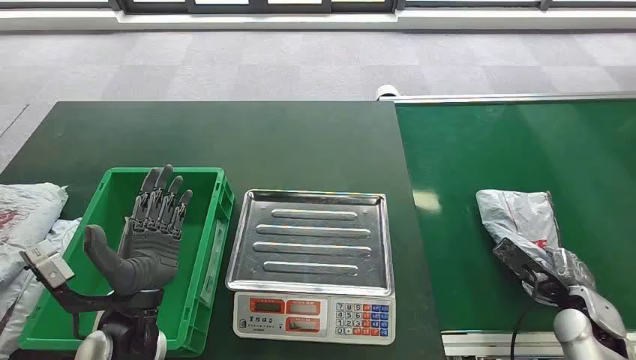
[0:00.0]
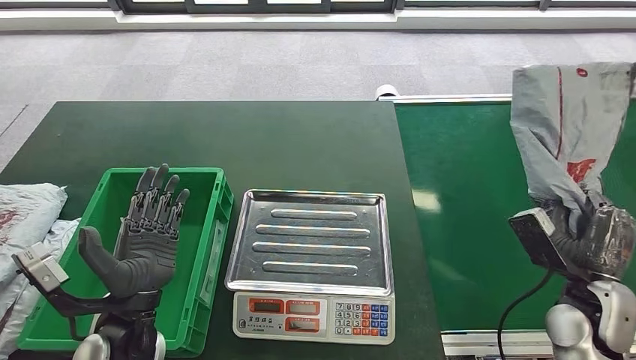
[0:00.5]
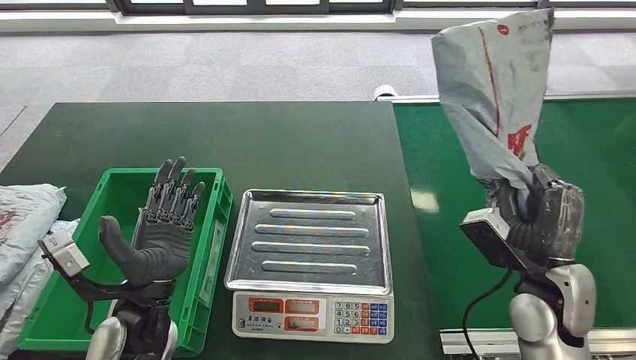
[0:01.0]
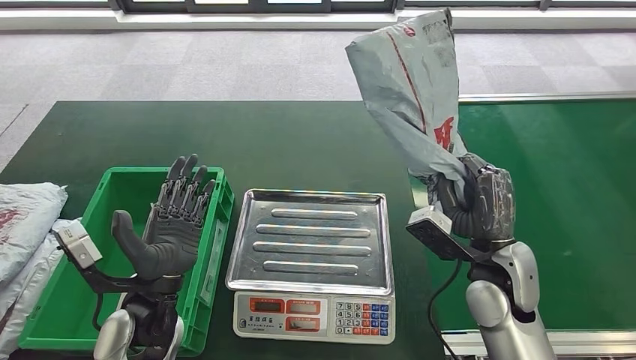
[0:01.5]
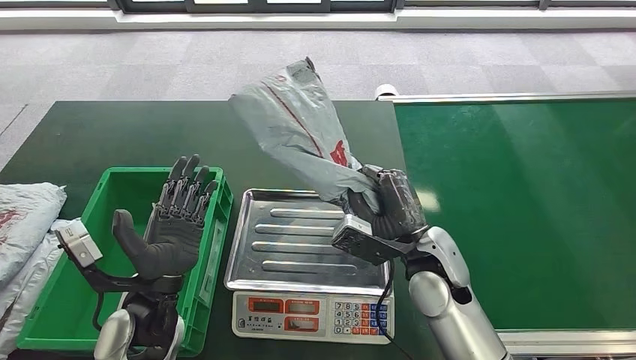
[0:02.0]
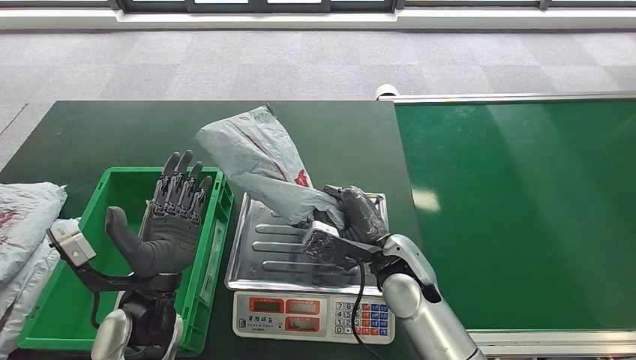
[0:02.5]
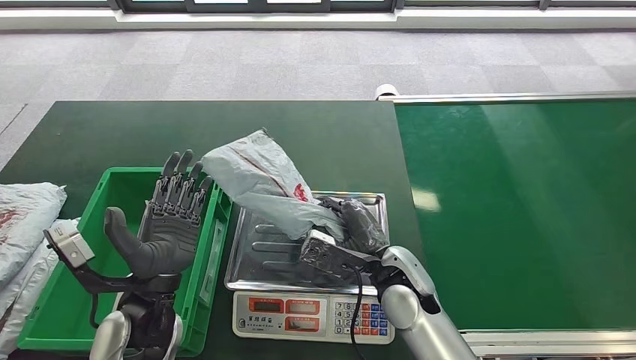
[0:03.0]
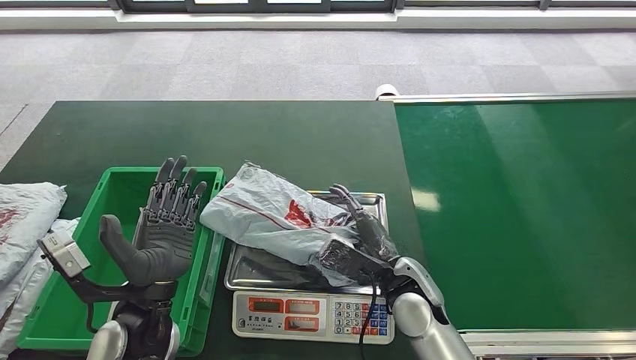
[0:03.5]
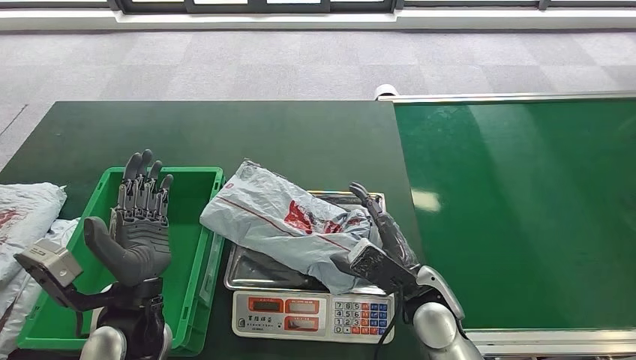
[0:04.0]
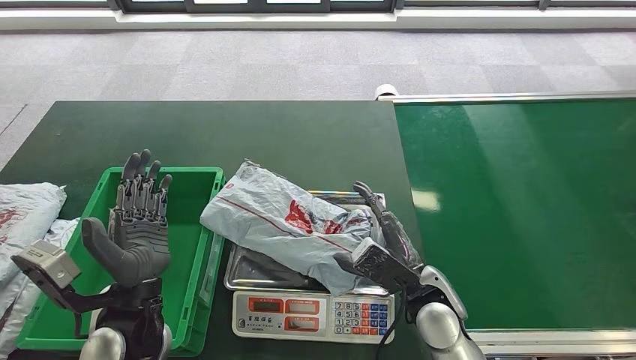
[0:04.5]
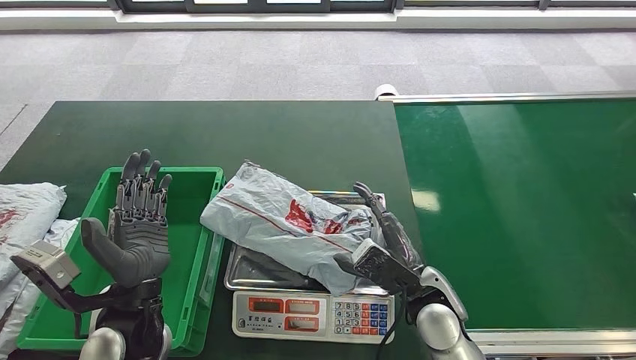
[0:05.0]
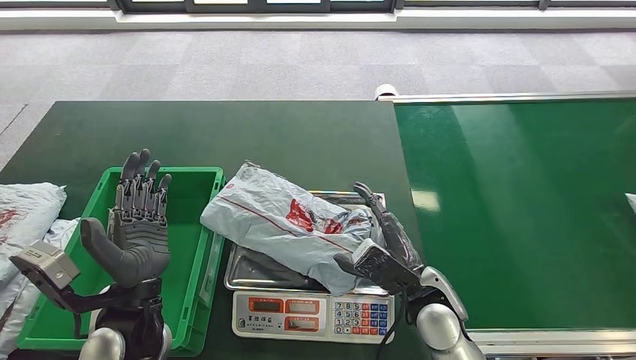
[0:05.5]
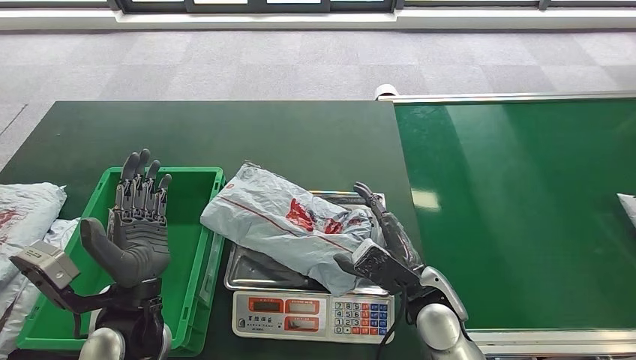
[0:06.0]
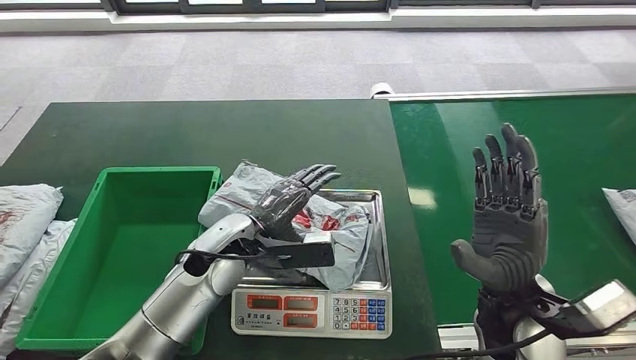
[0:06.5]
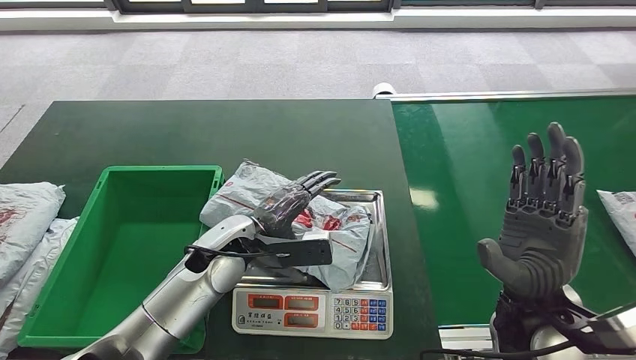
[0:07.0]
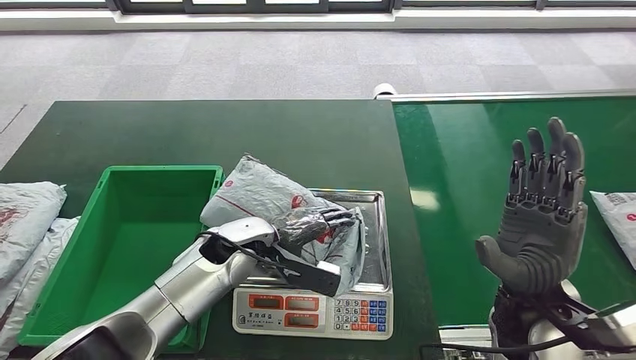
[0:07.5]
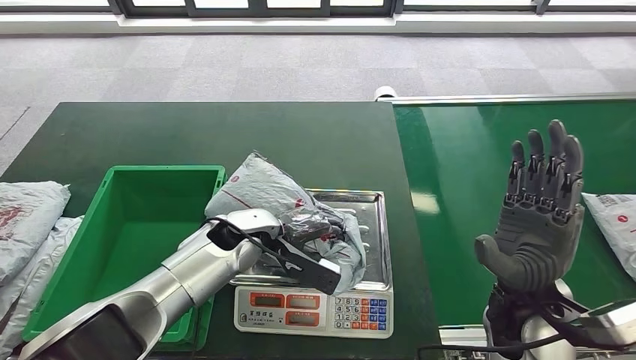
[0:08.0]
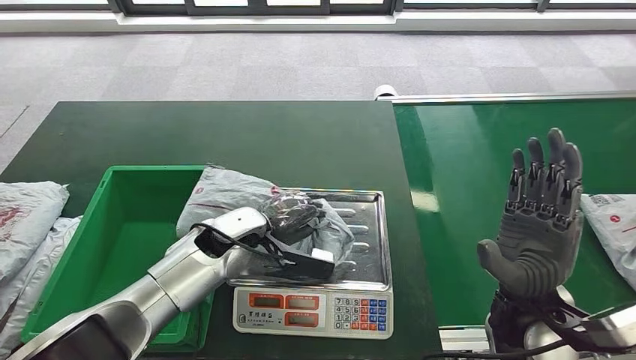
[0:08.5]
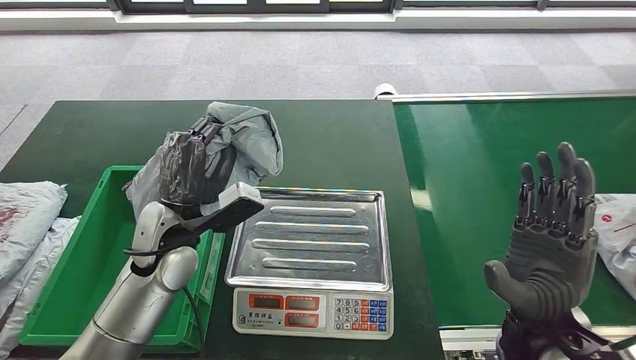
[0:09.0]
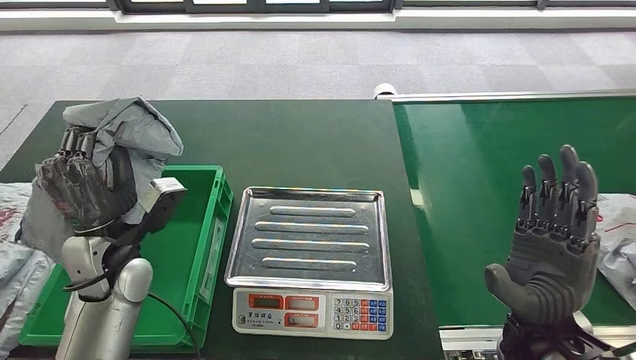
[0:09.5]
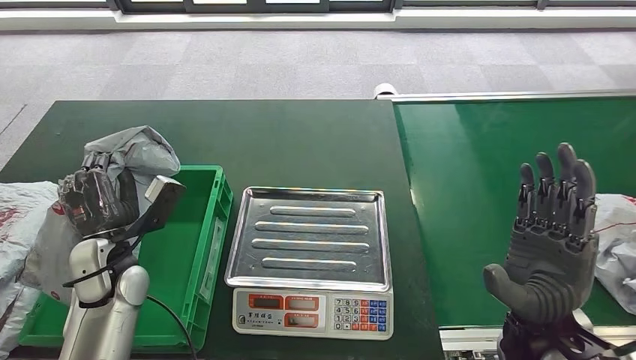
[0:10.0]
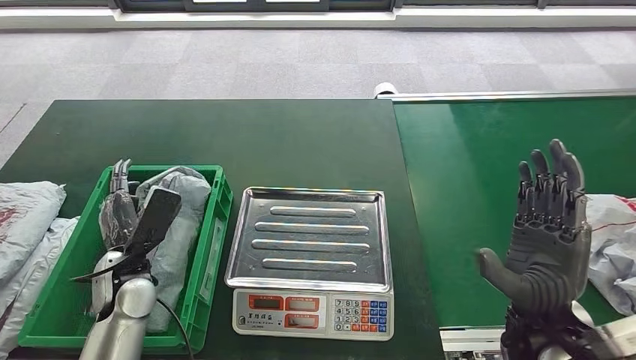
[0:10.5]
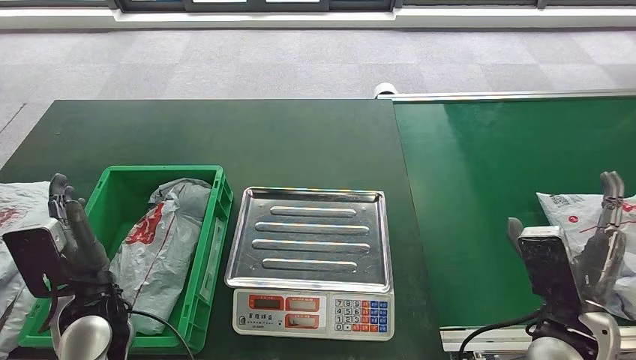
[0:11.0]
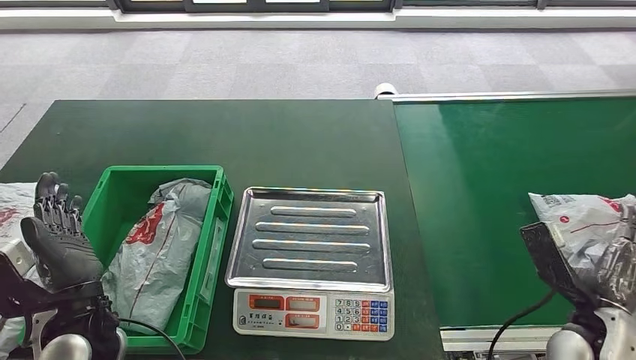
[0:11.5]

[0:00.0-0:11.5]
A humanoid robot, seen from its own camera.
Step, 0:00.0 to 0:01.0: Take the parcel off the conveyor belt.
Step, 0:01.5 to 0:04.5: Place the parcel onto the inbound machine.
Step, 0:05.0 to 0:08.5: Pick up the parcel from the inbound machine.
Step, 0:09.5 to 0:11.0: Put the parcel inside the courier box.
0:04.0 to 0:06.0: The two hands keep their place.

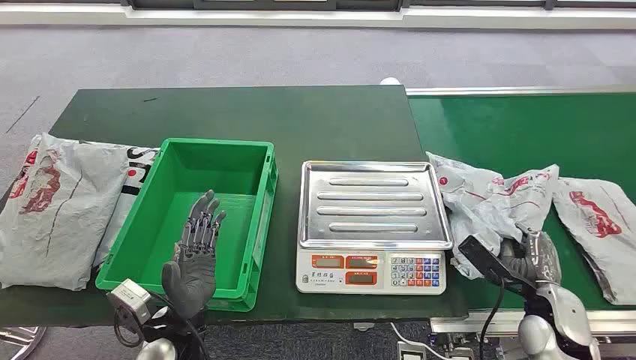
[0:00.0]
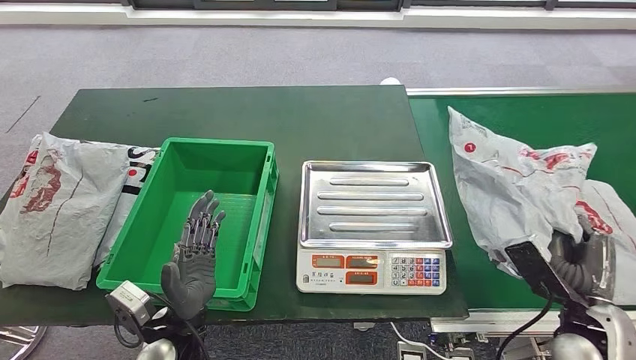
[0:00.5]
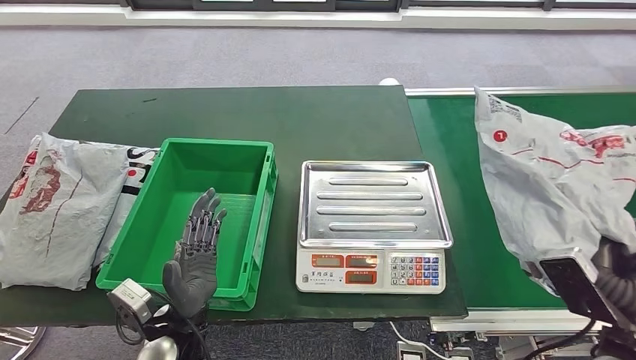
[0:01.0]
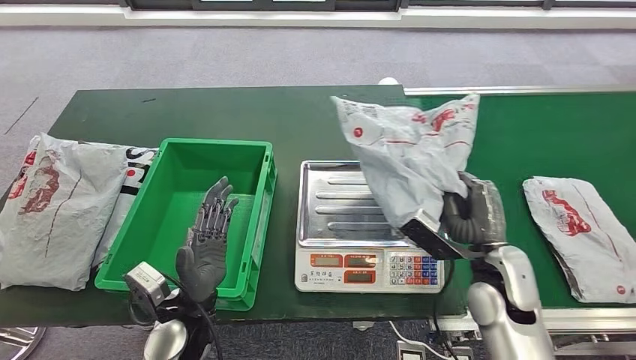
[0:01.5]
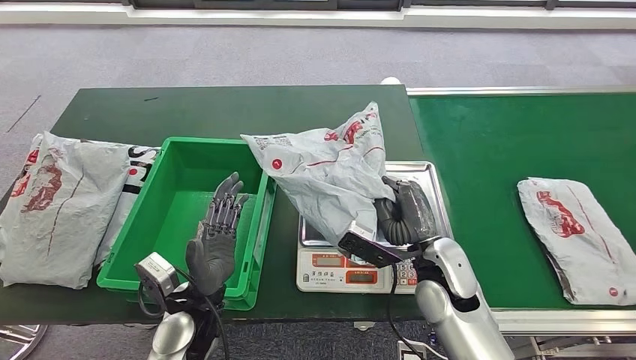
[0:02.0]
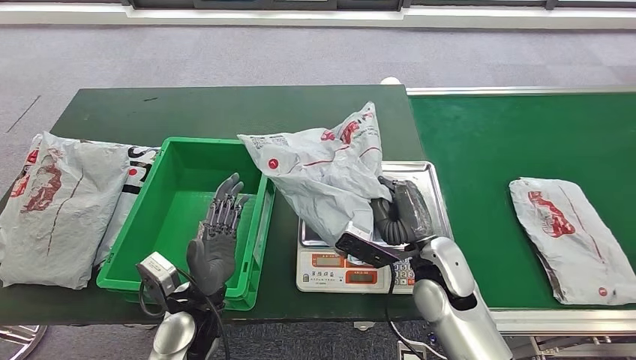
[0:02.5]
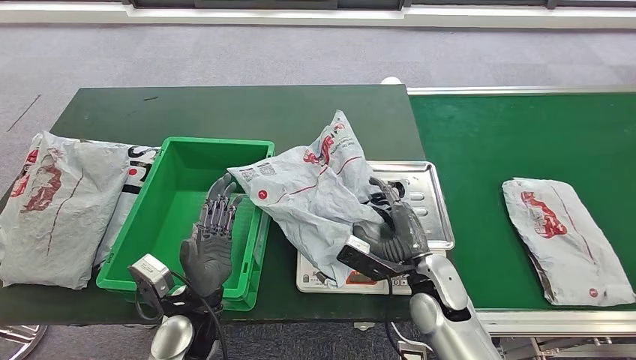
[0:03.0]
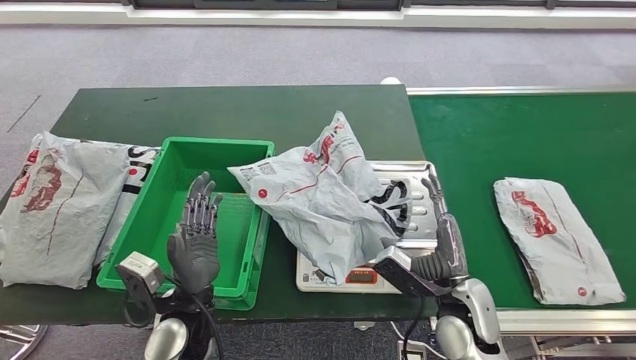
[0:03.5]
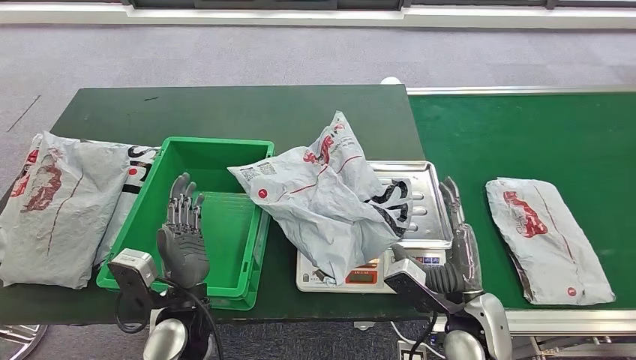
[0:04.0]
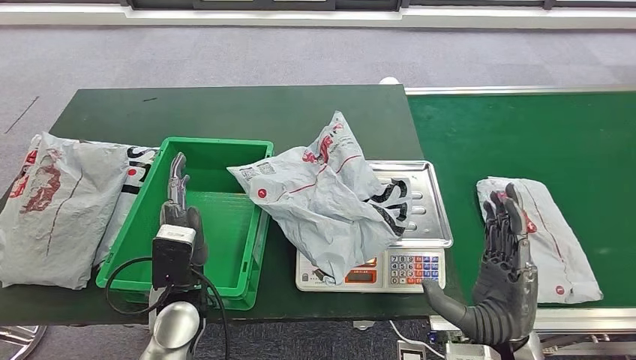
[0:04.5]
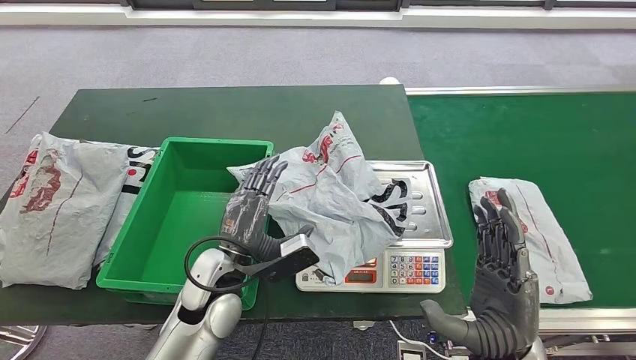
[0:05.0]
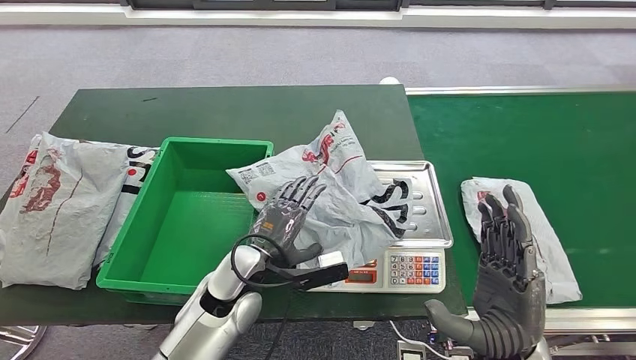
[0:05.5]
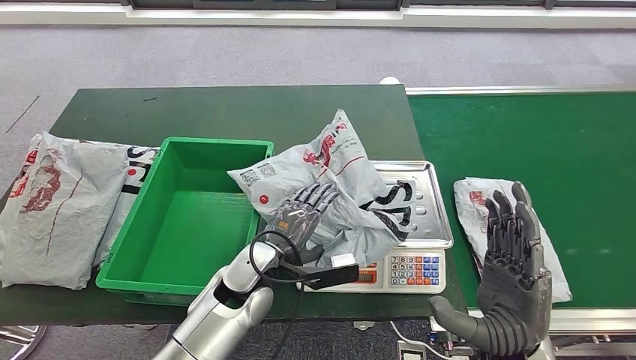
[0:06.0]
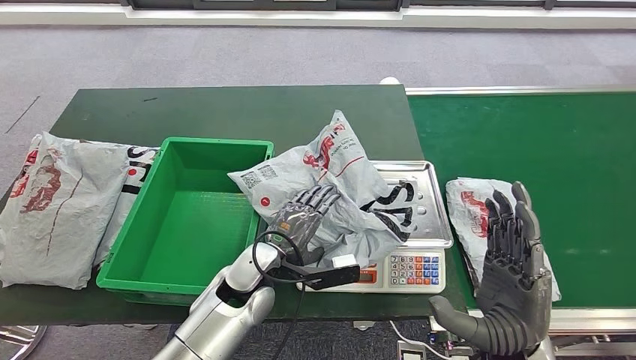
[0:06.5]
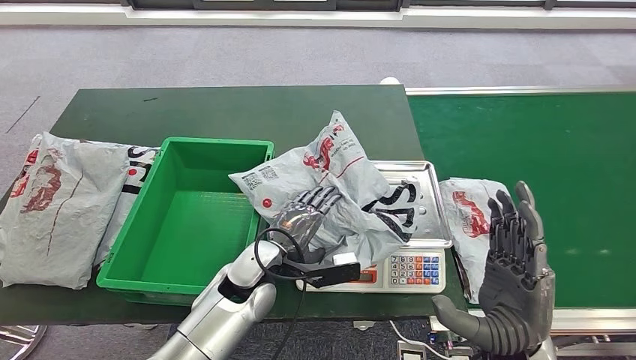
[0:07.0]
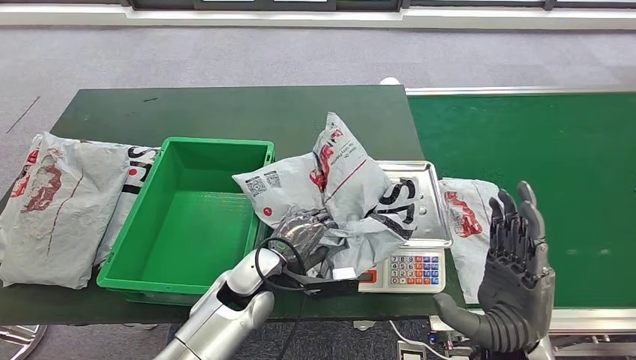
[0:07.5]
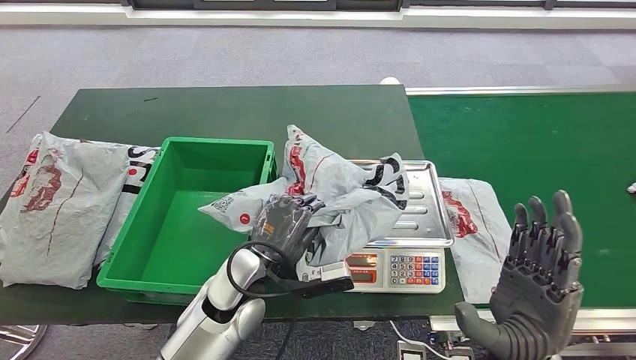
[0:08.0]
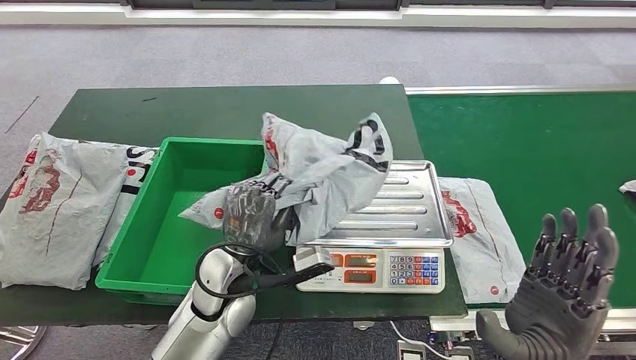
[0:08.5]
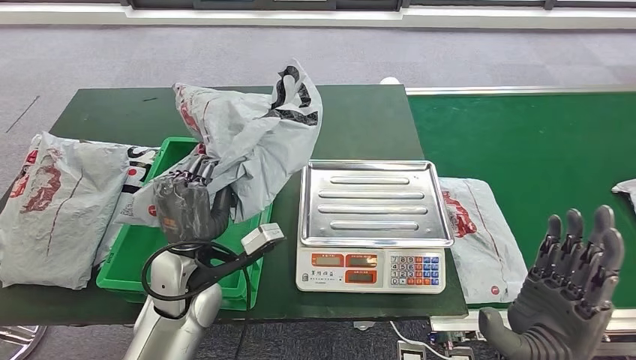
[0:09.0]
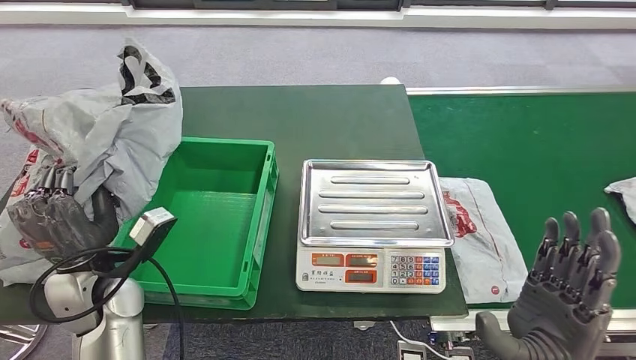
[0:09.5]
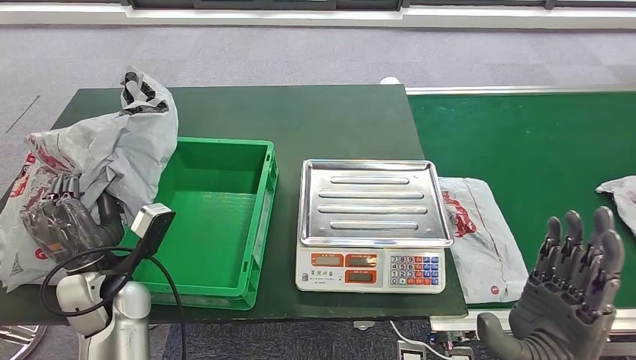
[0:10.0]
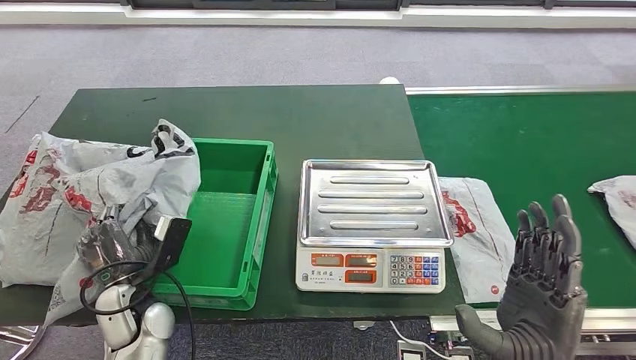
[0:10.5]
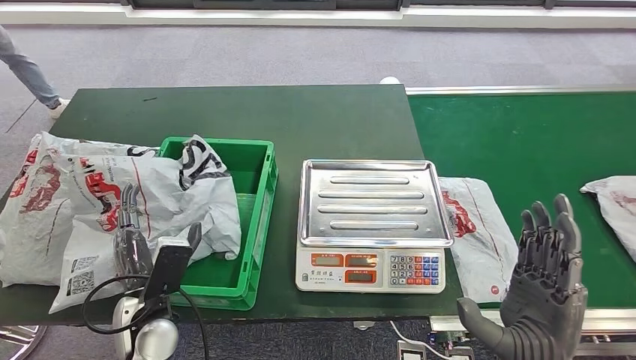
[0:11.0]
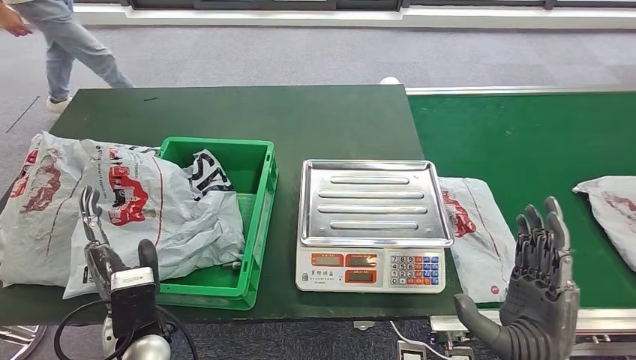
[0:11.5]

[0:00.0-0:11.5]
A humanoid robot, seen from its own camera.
Step, 0:00.0 to 0:00.5: Take the parcel off the conveyor belt.
Step, 0:01.5 to 0:03.5: Place the parcel onto the inbound machine.
Step, 0:04.0 to 0:09.0: Pick up the parcel from the inbound machine.
0:04.0 to 0:06.0: The left hand moves to the right and forward, some 10 cm; the right hand moves upward, about 5 cm.
0:06.0 to 0:07.5: The hands stay close to where they were, moving slightly.
